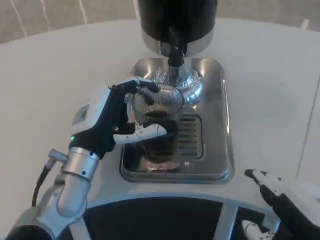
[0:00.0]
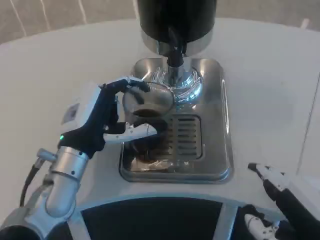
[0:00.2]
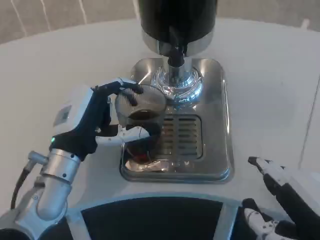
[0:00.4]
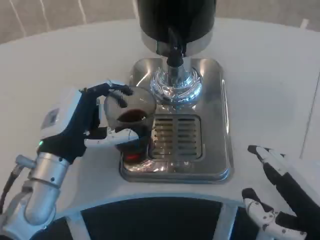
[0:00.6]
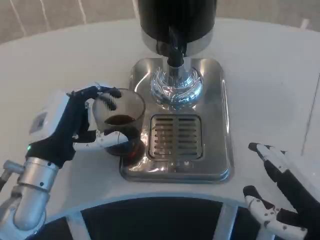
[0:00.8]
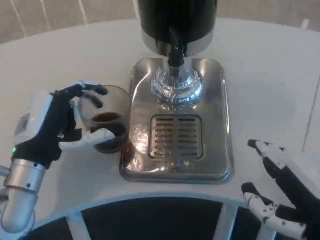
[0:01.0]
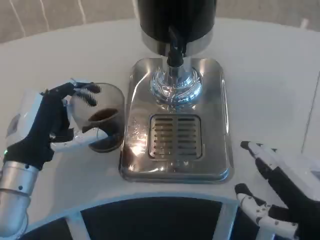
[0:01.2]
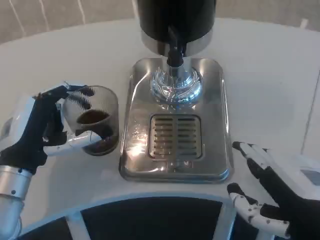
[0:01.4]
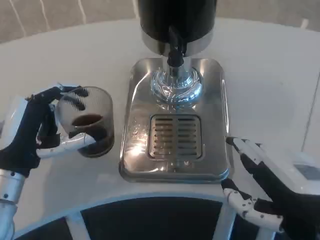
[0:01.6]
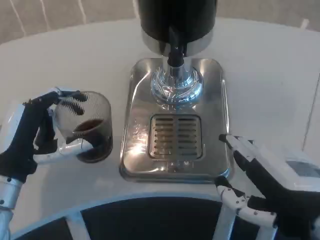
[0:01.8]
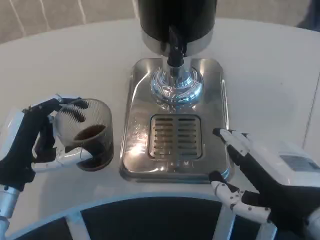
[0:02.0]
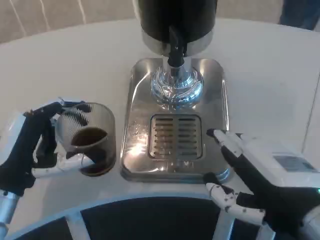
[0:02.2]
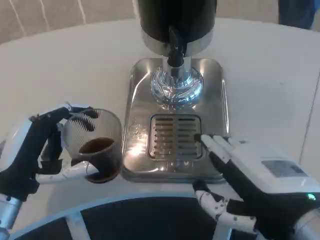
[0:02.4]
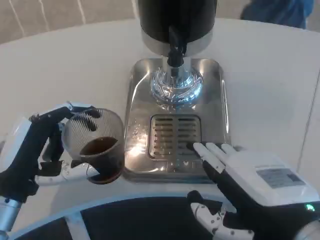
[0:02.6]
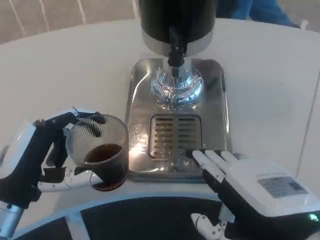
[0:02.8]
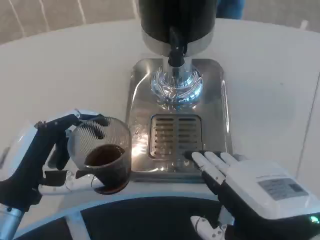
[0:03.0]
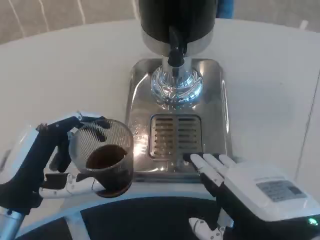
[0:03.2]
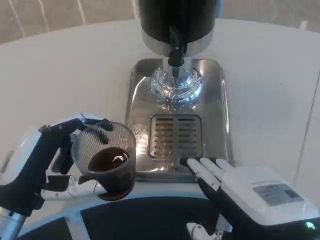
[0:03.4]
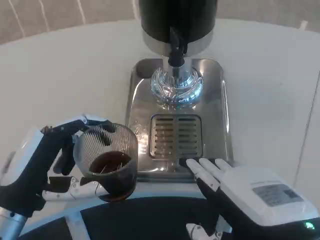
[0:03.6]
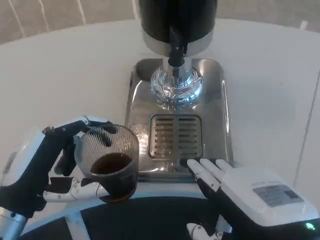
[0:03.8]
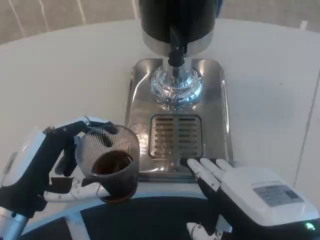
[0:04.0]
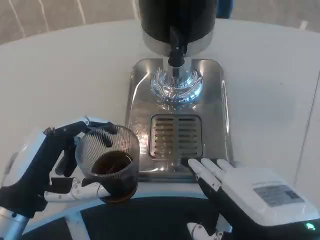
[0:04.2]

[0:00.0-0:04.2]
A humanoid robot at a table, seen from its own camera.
Task of the whole recording: Grasp the cup under the faucet to collect the drink, then remove the cup.
0:00.0 to 0:01.4: The left hand moves to the left, about 10 cm.
0:01.4 to 0:02.8: The left hand heads backward, covering about 5 cm.
0:02.8 to 0:04.2: Both hands stay put.

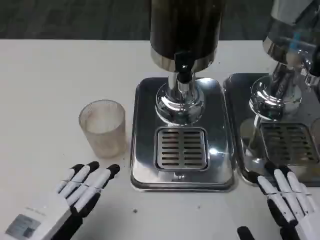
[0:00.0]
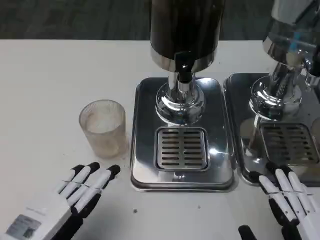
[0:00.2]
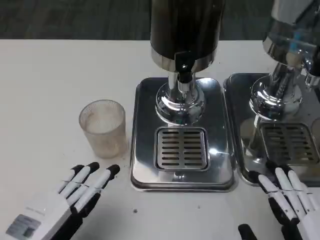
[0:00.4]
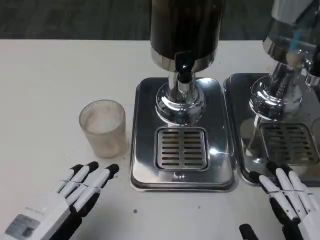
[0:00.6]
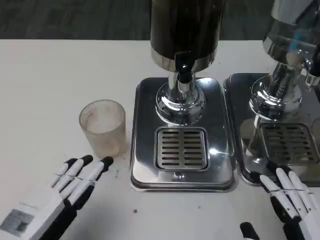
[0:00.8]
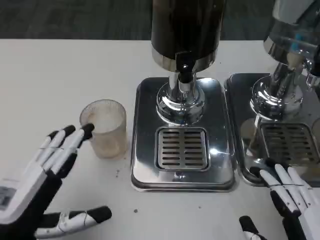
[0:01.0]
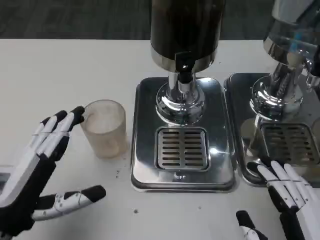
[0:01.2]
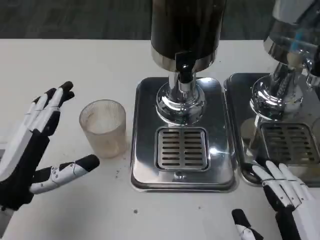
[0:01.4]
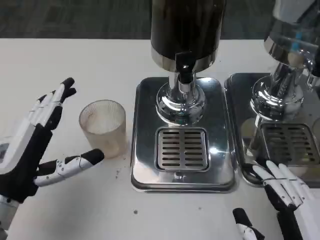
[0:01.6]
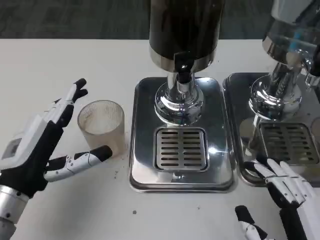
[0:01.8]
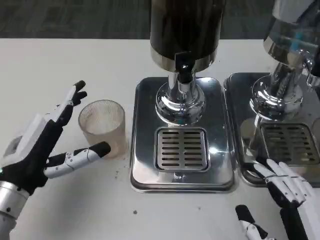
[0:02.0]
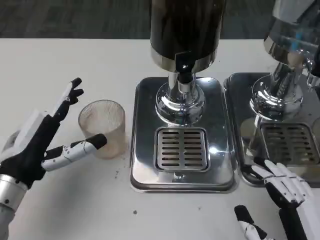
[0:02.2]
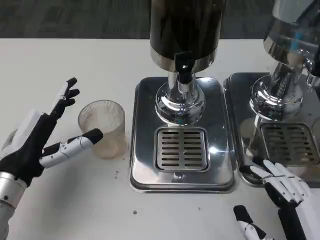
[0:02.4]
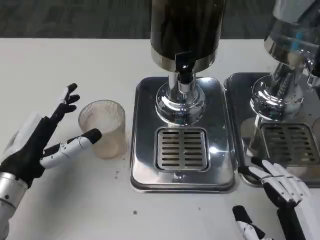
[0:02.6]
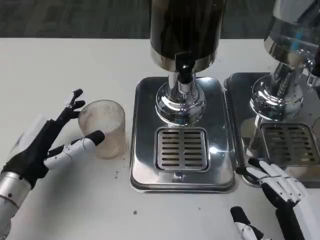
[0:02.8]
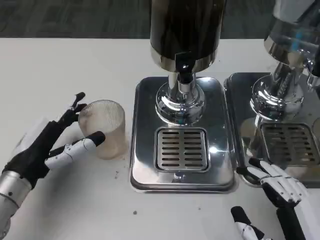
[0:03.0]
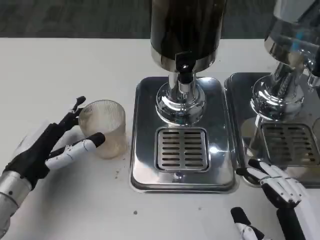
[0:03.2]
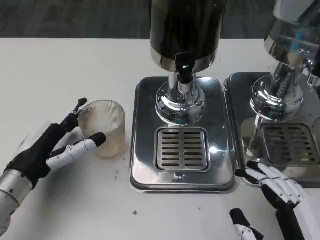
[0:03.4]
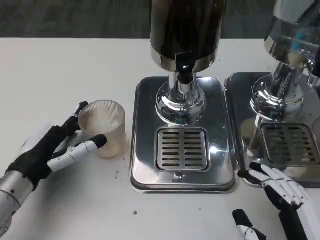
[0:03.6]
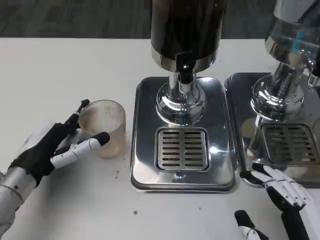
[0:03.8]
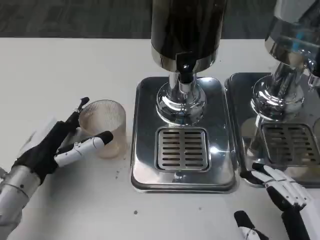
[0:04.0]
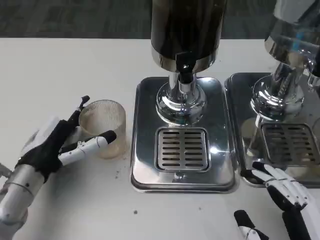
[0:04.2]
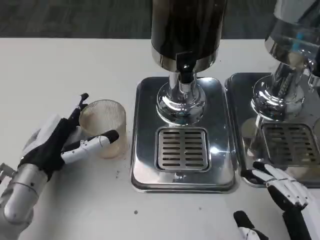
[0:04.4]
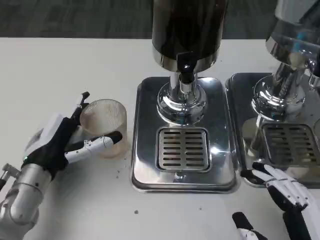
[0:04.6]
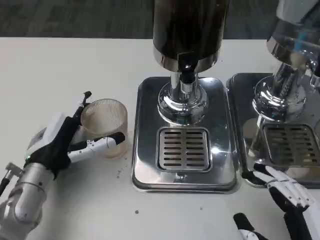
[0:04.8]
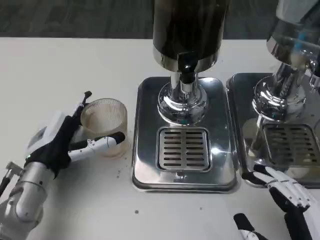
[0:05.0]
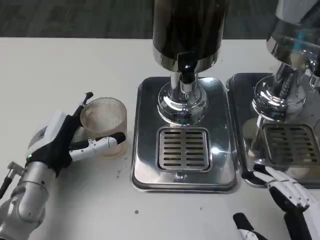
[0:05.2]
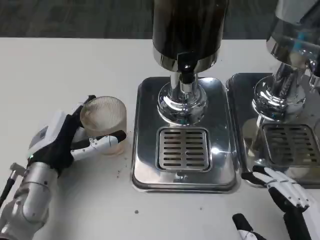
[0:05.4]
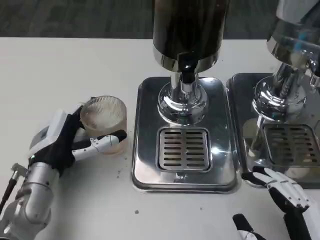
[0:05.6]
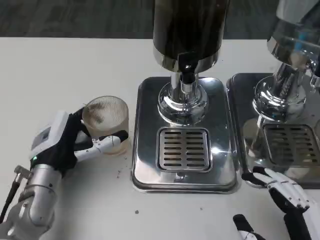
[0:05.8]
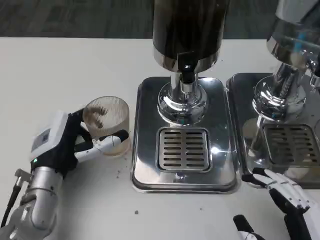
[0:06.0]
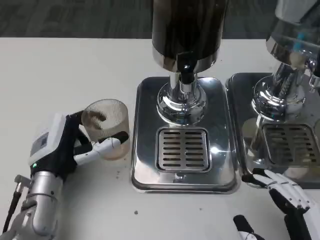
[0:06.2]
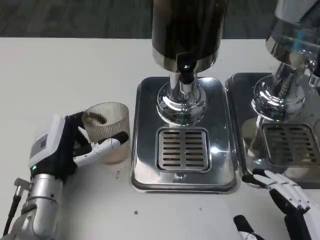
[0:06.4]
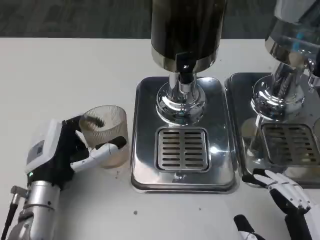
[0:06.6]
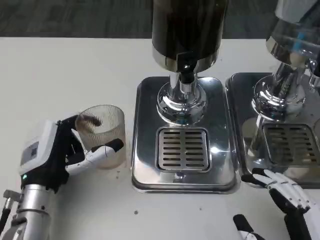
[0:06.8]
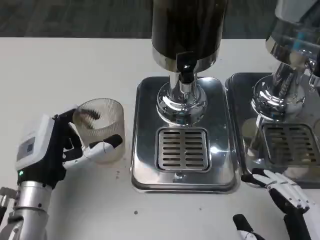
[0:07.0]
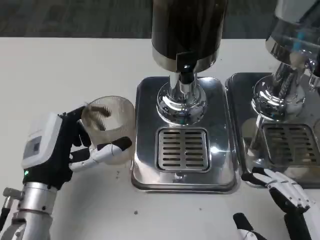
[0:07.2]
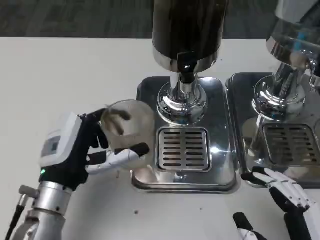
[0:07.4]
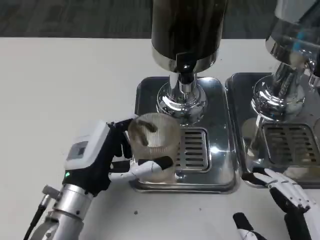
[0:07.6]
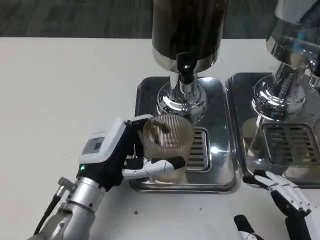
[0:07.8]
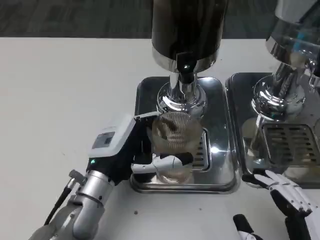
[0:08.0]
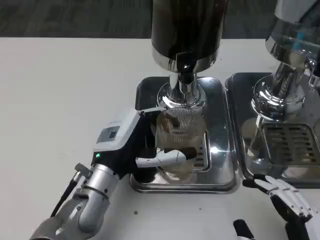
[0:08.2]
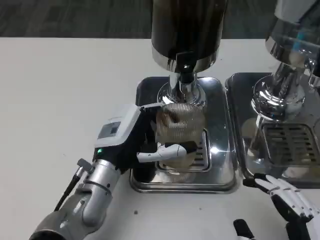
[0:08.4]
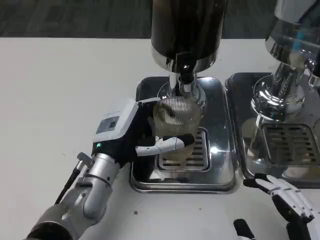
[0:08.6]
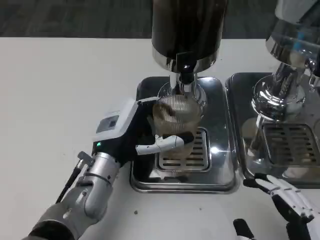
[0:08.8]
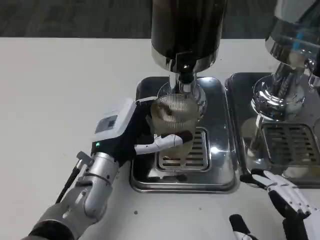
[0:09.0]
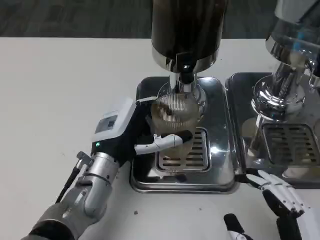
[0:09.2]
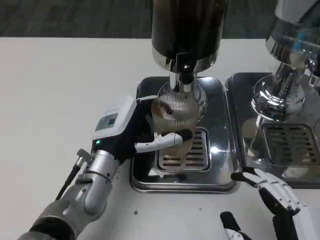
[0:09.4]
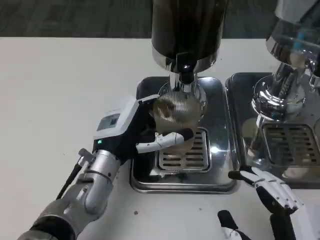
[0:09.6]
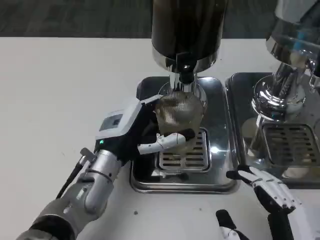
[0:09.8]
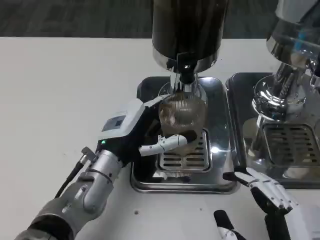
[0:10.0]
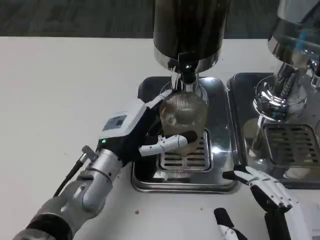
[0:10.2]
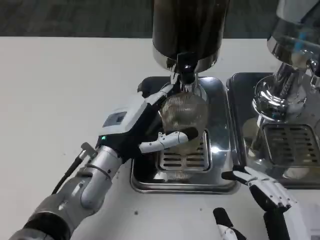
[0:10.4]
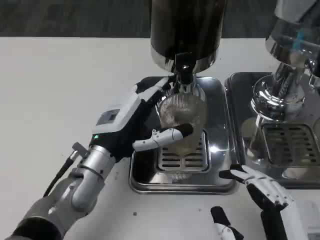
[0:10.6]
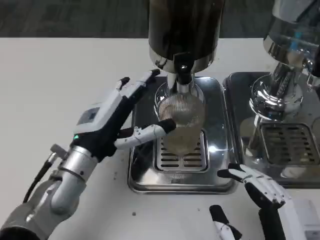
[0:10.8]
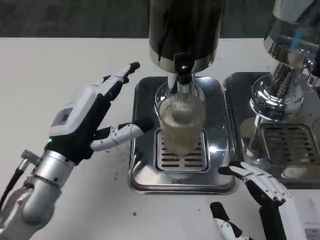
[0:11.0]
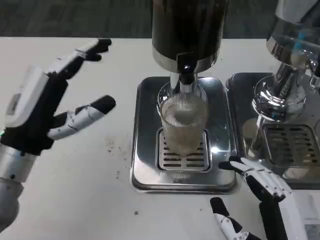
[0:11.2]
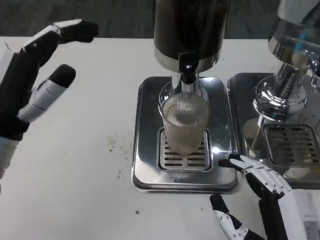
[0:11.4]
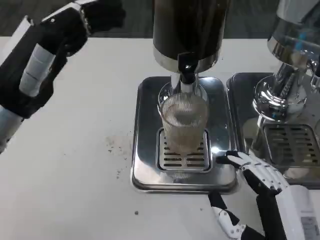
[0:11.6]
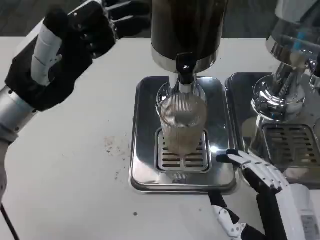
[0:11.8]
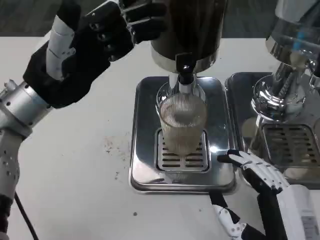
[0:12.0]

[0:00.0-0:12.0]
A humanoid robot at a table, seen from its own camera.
Task of the whole recording: Grasp the cup under the faucet to collect the drink, then remove the cup.
0:00.0 to 0:01.6: The left hand heads forward, covering approximately 10 cm.
0:03.0 to 0:04.4: There are only small adjustments of the hands.
0:04.4 to 0:06.0: The hands move only a little.
0:06.0 to 0:07.6: The left hand moves about 5 cm.
0:07.6 to 0:09.0: The left hand shifts roughly 5 cm forward.
0:09.0 to 0:10.4: The hands move only a little.
0:10.4 to 0:12.0: The left hand goes some 15 cm upward and to the left.

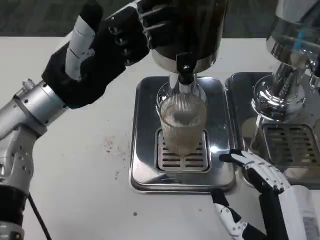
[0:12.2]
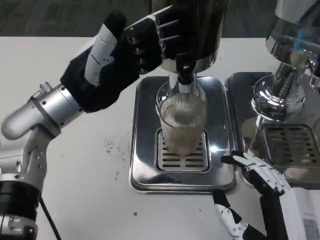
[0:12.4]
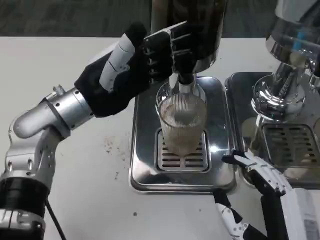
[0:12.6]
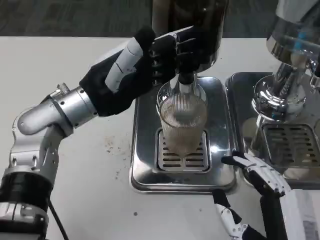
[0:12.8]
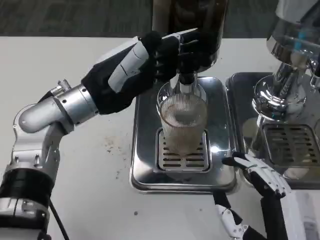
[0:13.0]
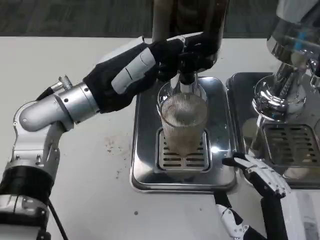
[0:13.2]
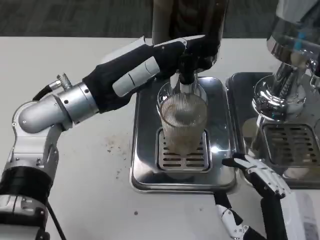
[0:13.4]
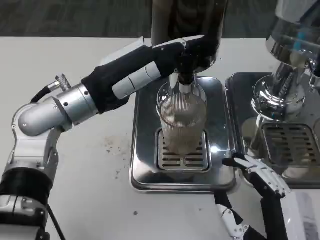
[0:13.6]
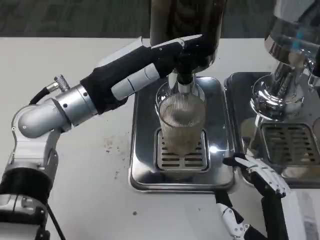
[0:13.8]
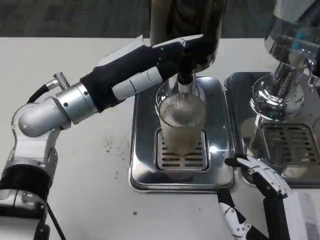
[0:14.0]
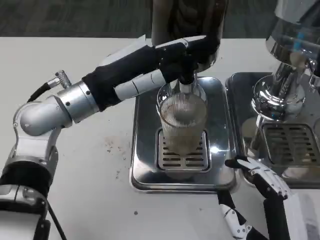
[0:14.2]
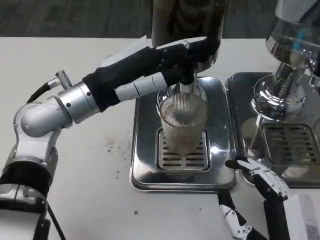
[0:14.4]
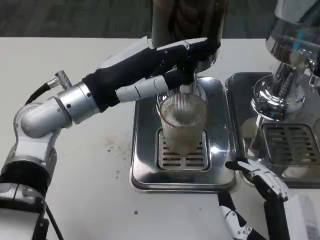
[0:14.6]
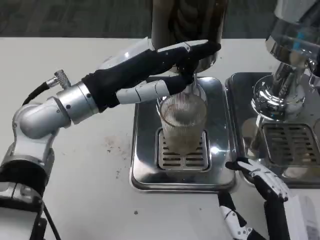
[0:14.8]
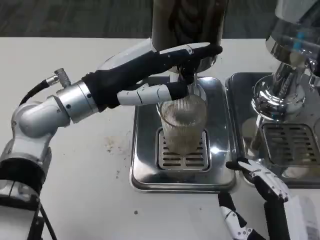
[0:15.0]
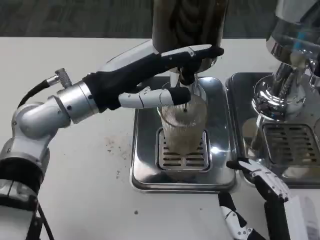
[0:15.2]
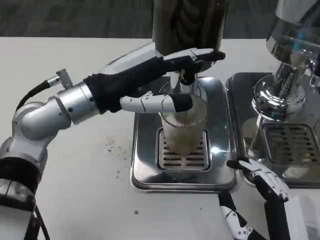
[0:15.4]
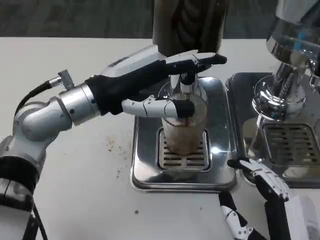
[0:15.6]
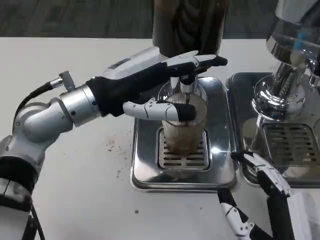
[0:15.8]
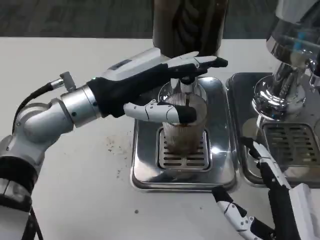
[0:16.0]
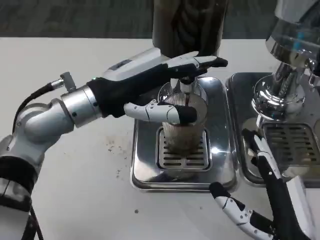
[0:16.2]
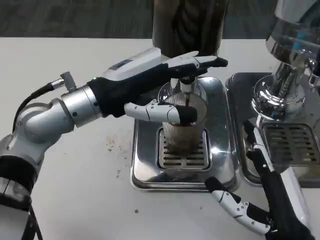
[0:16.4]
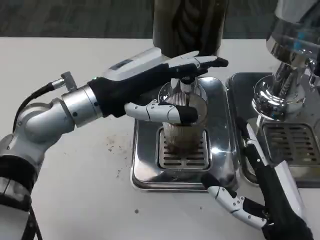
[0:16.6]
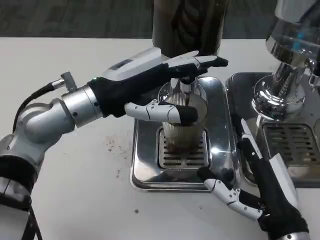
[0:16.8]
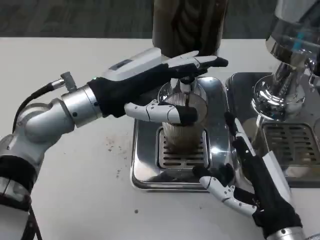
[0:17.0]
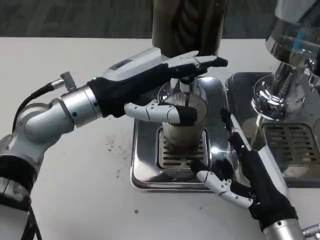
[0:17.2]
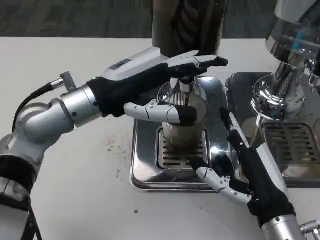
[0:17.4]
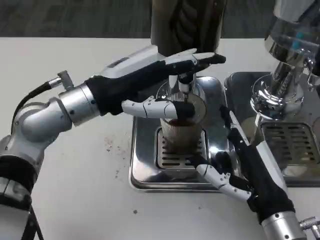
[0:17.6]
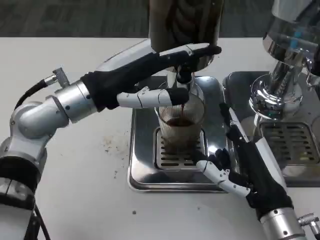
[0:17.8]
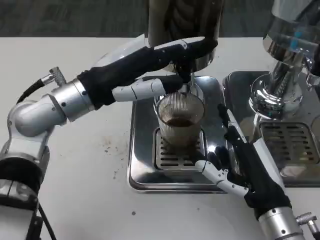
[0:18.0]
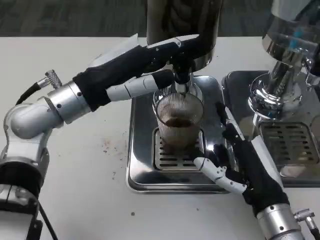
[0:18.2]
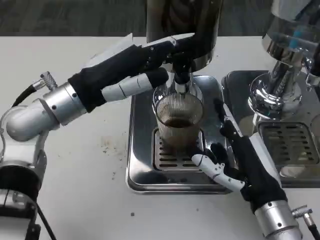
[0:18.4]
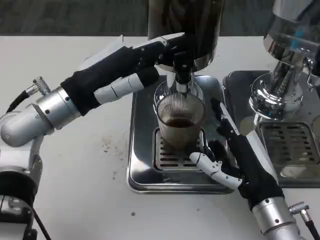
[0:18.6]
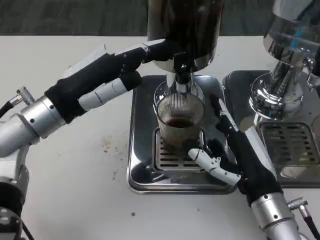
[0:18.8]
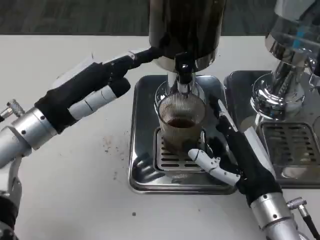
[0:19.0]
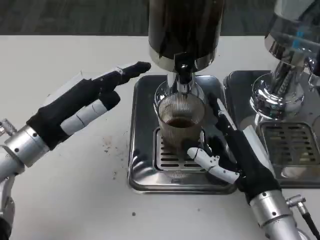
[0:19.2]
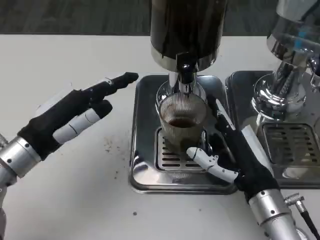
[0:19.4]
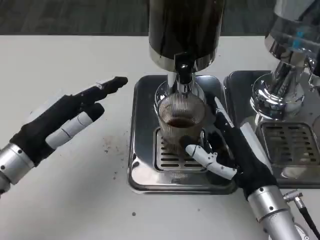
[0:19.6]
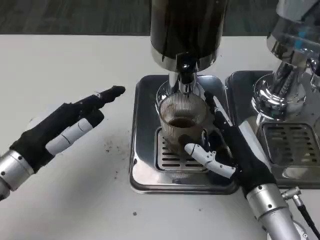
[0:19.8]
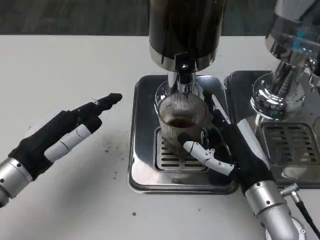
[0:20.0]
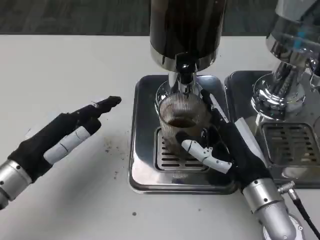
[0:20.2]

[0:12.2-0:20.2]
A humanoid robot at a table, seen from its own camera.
Task of the whole recording: Grasp the cup under the faucet to collect the drink, then remove the cup.
0:15.4 to 0:17.0: The right hand is displaced forward by roughly 5 cm.
0:18.6 to 0:20.2: The left hand moves backward, downward and to the left, some 15 cm.
